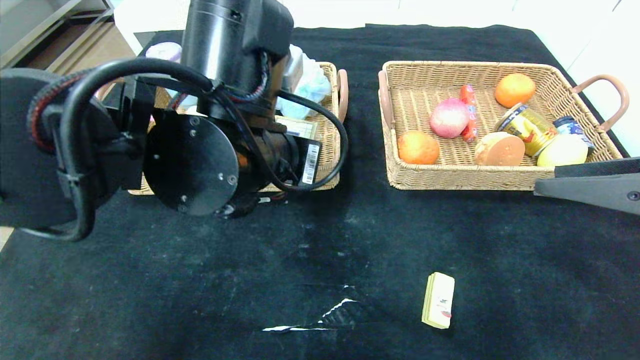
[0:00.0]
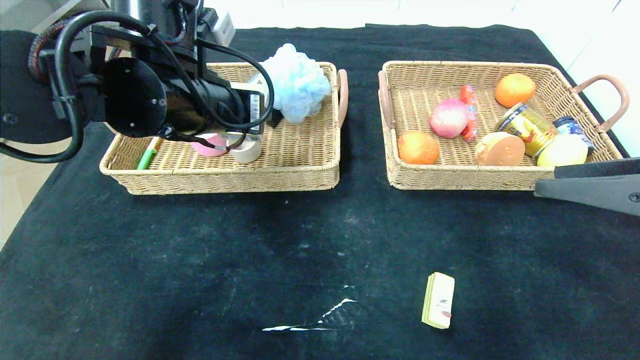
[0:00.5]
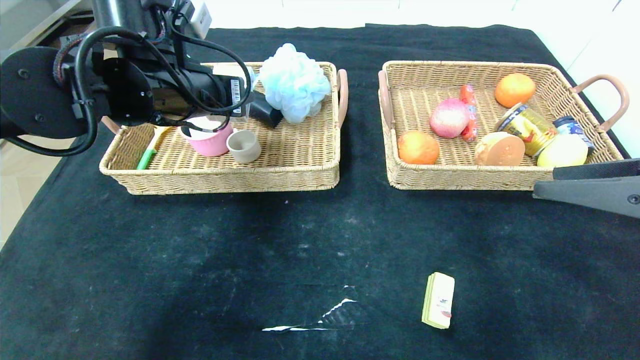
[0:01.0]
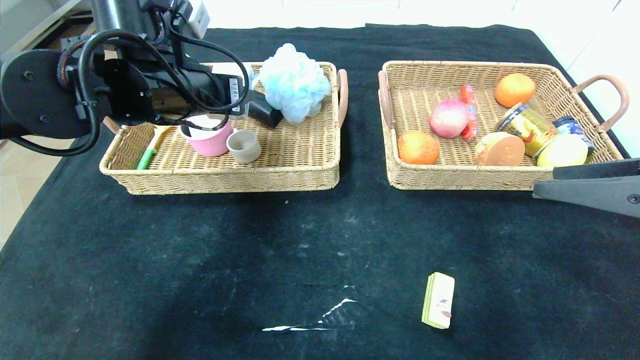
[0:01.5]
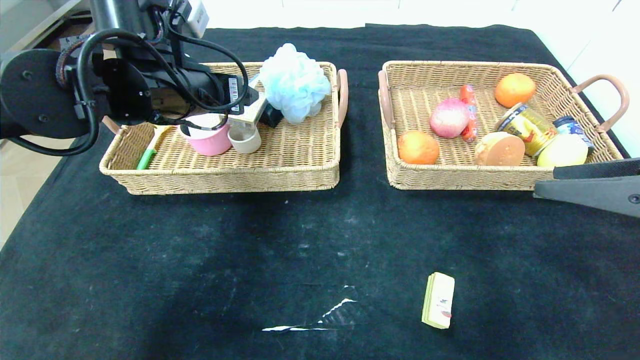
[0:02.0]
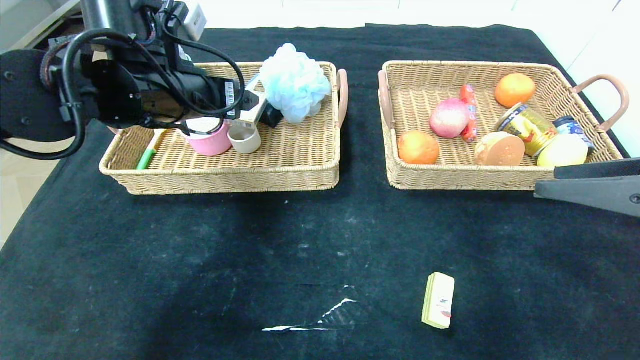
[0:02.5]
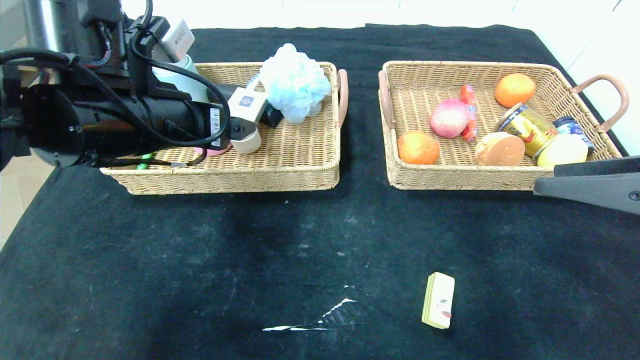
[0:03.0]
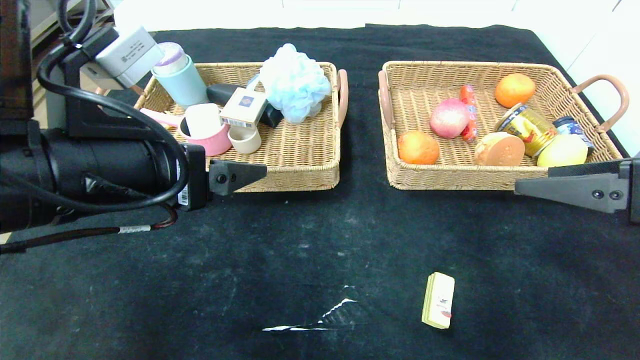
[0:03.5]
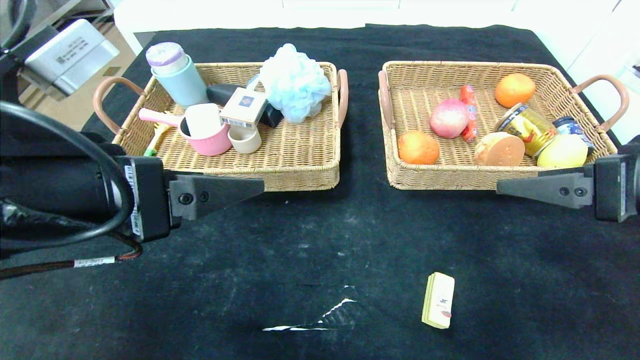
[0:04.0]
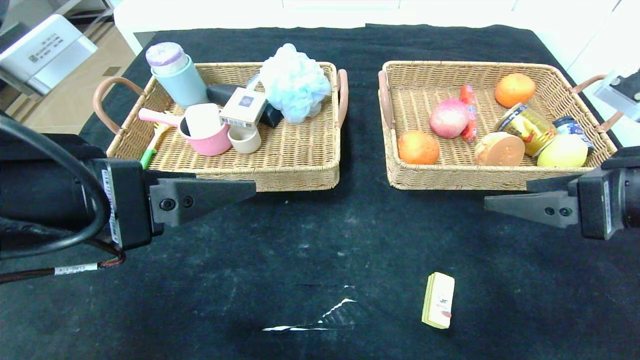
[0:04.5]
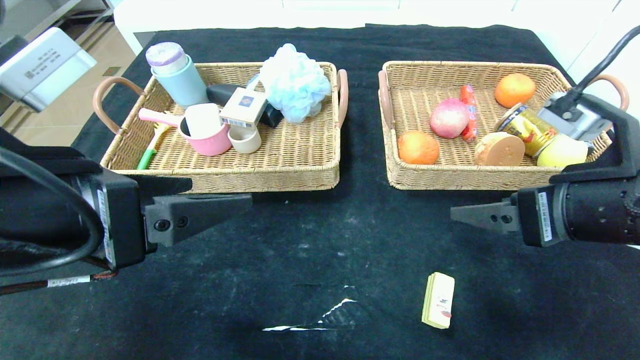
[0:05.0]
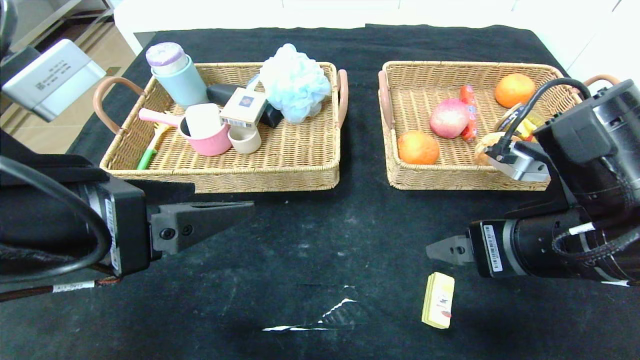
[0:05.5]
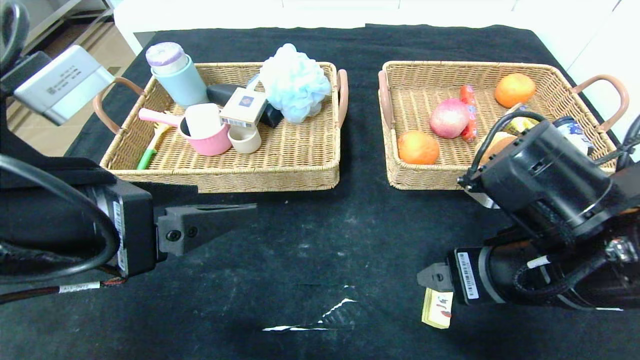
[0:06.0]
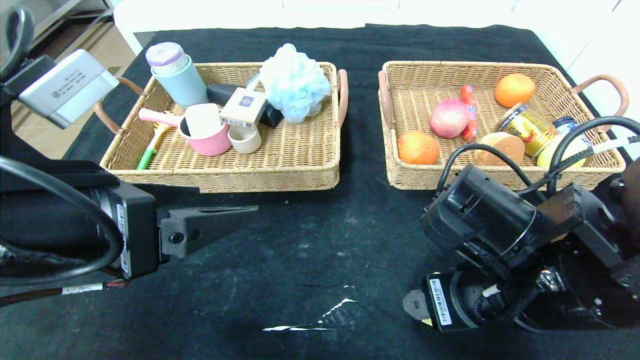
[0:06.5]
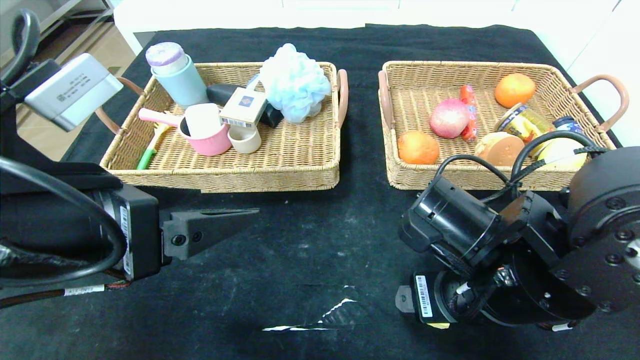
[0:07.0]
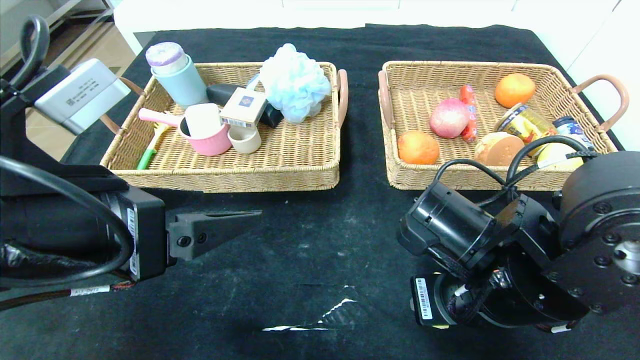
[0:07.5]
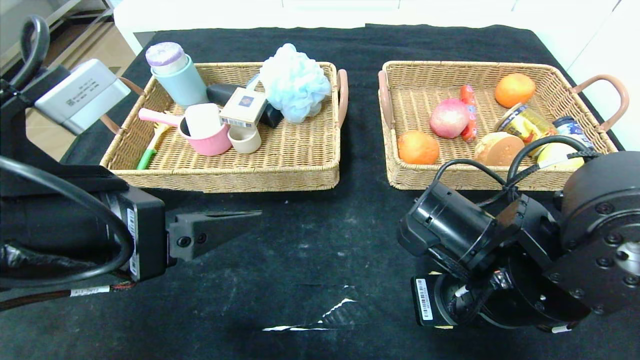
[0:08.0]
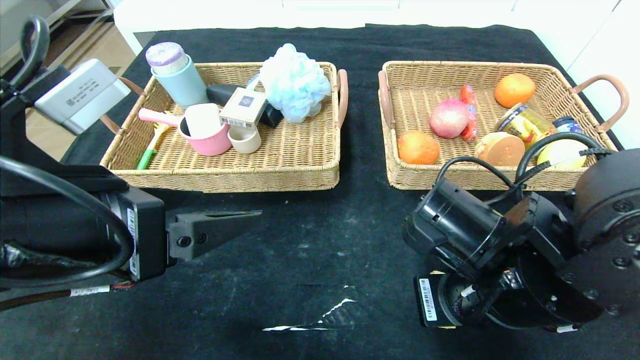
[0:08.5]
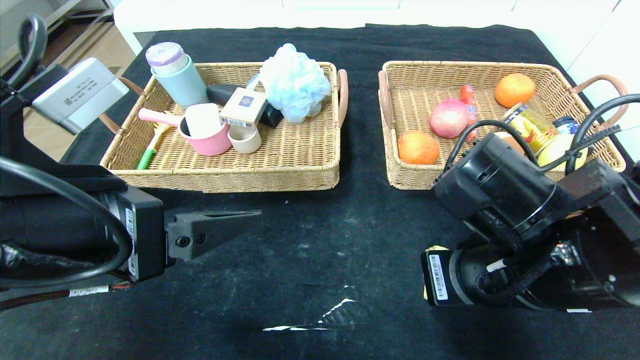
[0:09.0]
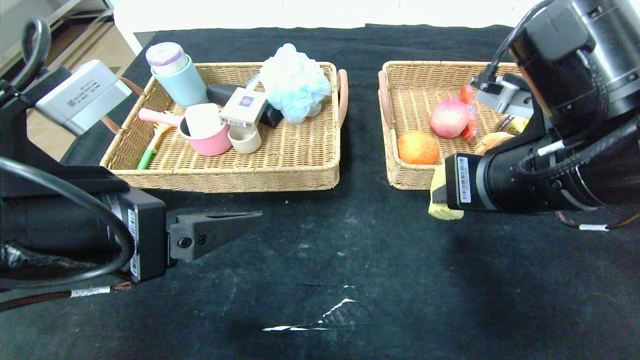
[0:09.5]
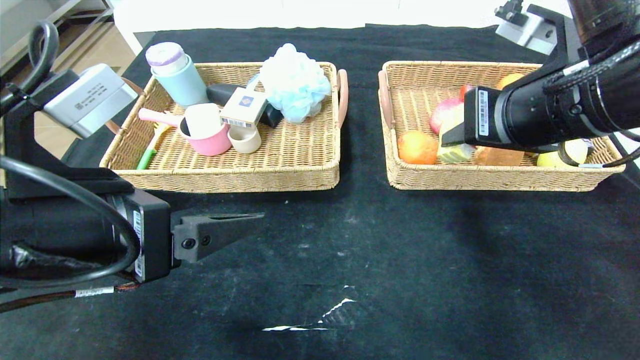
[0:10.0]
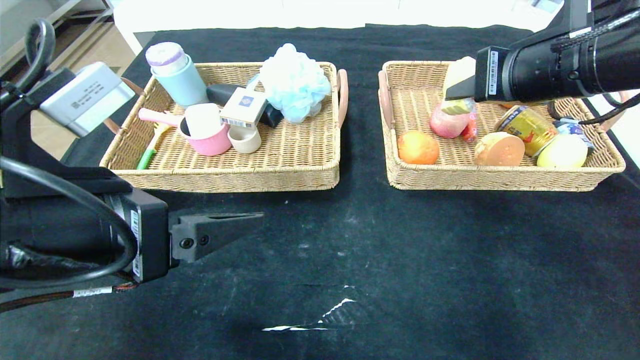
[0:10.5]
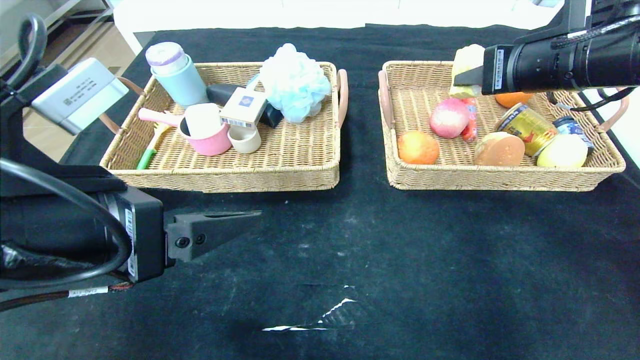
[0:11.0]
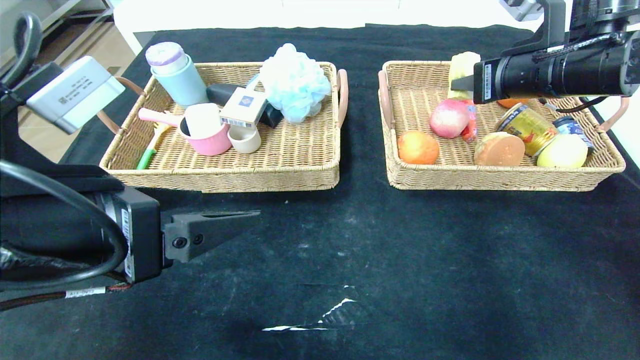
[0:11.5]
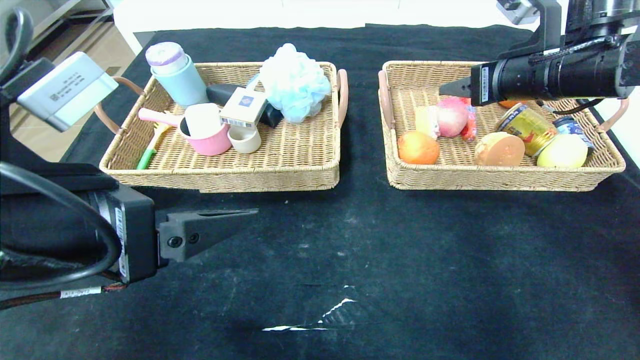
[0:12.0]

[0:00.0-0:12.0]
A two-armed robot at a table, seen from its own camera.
Step, 0:00.0 to 0:03.5: Pick up the playing cards and put it in the left basket.
0:00.0 to 0:02.0: The left gripper moves to the left and forward, some 15 cm.
0:02.0 to 0:04.0: The left gripper travels backward by approximately 20 cm.
0:04.0 to 0:06.0: The right gripper moves to the left and downward, some 15 cm.
0:06.0 to 0:08.0: The right gripper shifts by some 5 cm, and closes up.
0:08.0 to 0:10.0: The right gripper shifts about 15 cm upward.
0:10.0 to 0:12.0: The right gripper heads forward and to the right, covering about 10 cm, and opens its fingers.

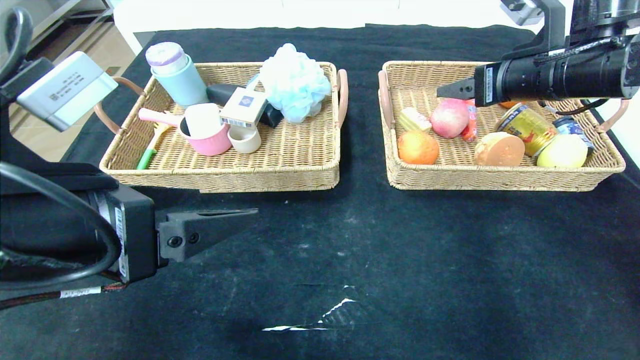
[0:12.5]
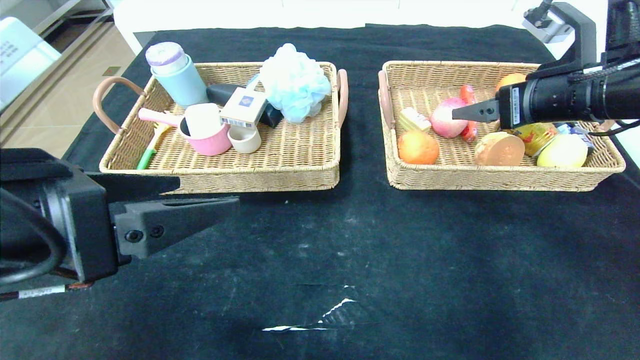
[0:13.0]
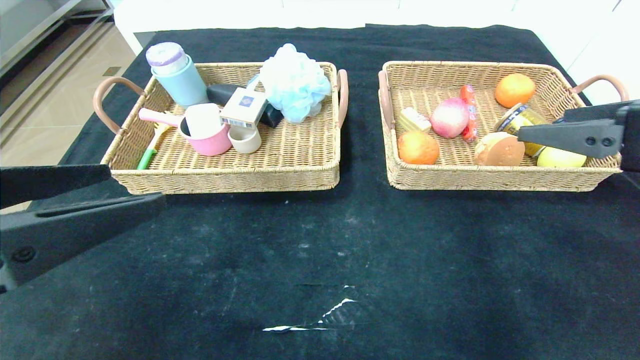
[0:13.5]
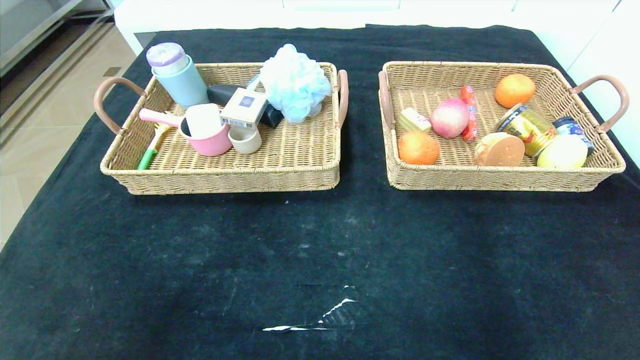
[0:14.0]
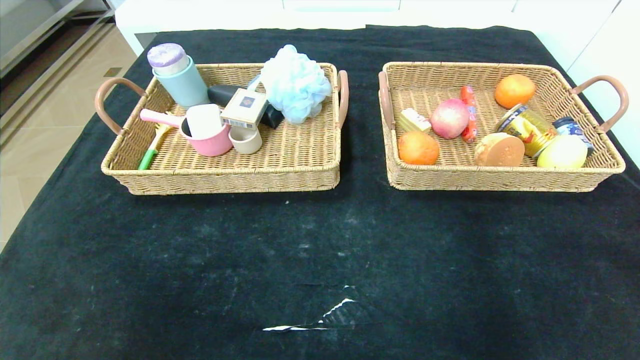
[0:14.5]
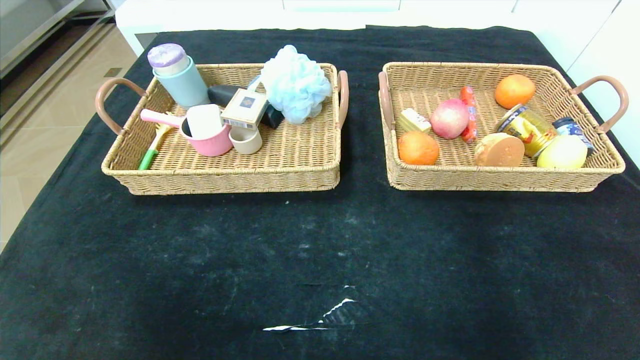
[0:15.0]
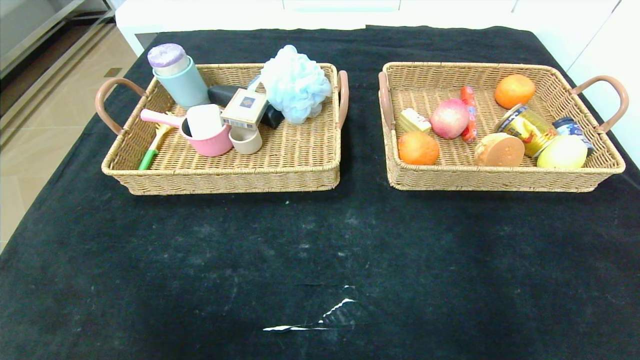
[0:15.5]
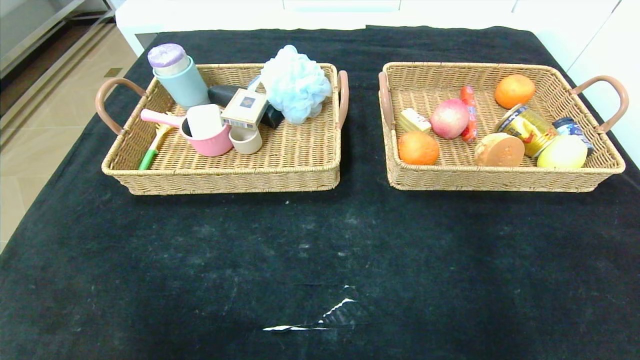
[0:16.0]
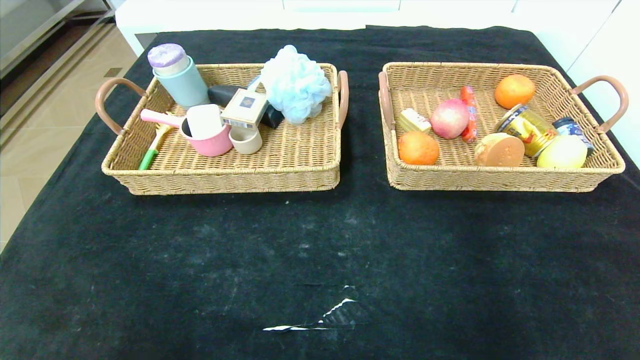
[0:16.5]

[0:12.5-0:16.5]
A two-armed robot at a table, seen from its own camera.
0:12.5 to 0:14.5: The right gripper is displaced backward by some 40 cm. Meanwhile the left gripper heads backward and to the left, covering roughly 25 cm.

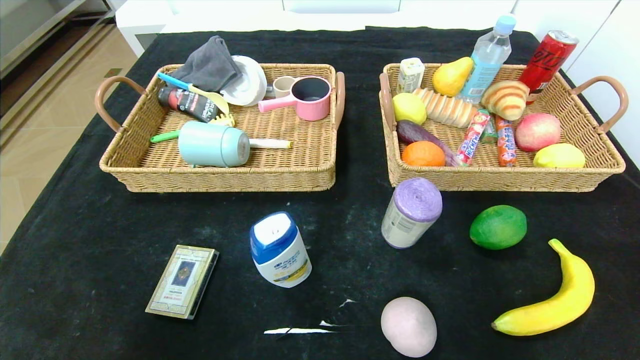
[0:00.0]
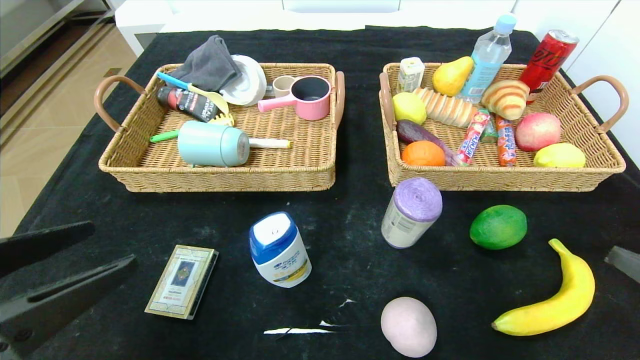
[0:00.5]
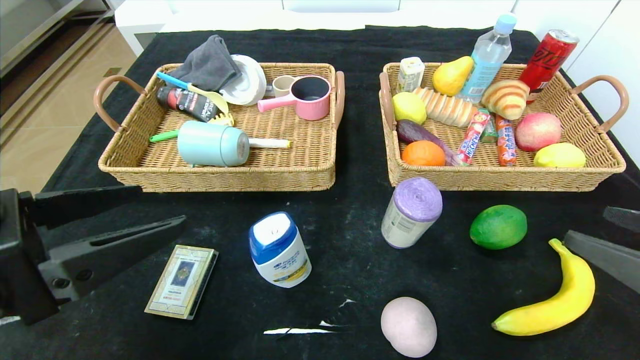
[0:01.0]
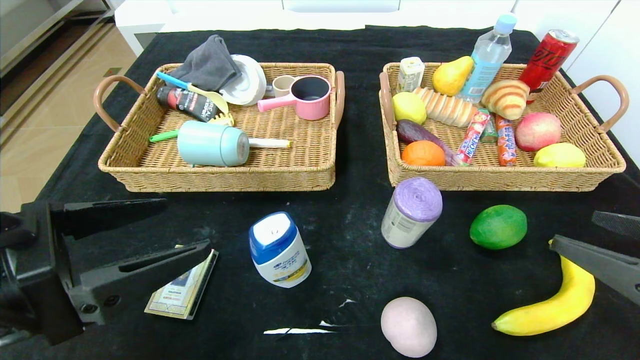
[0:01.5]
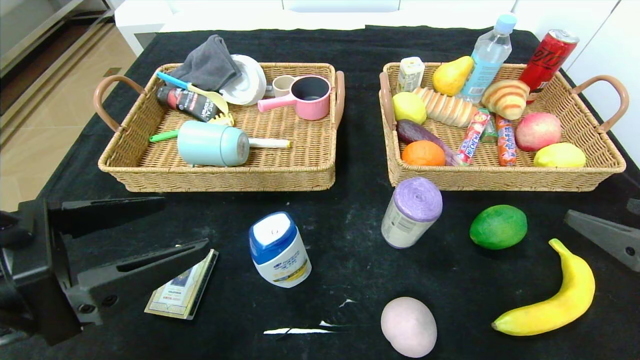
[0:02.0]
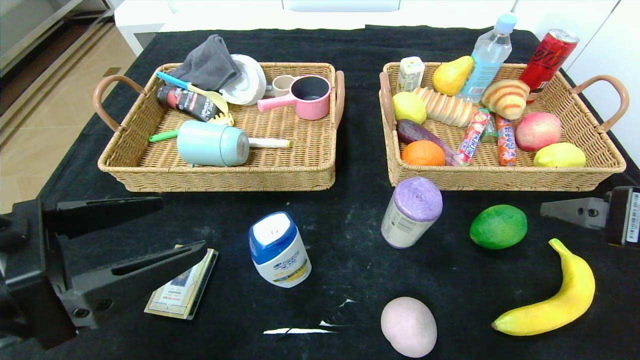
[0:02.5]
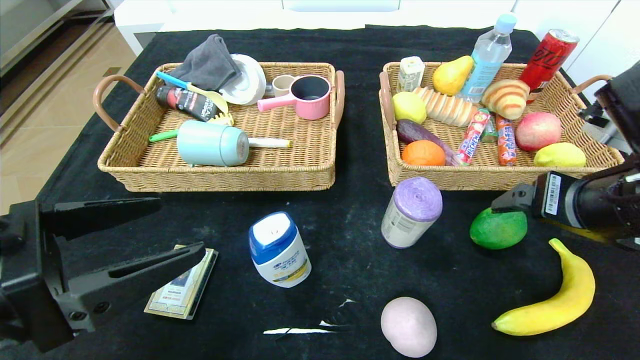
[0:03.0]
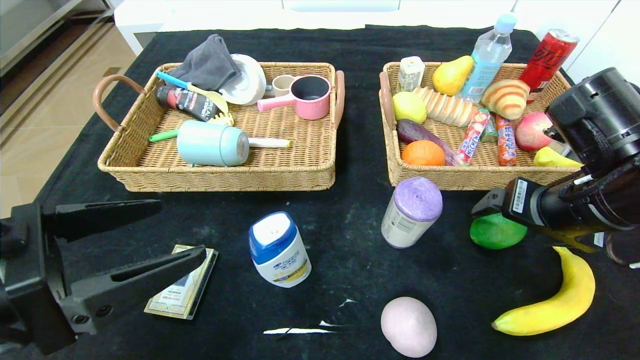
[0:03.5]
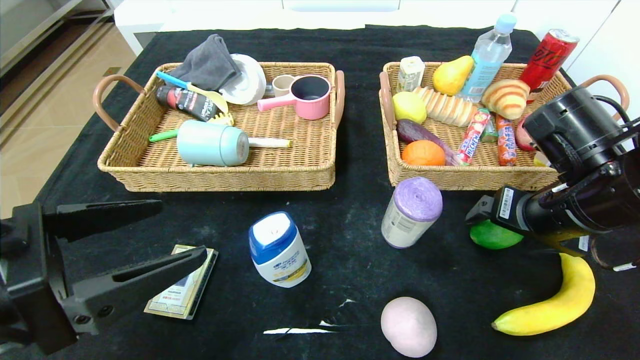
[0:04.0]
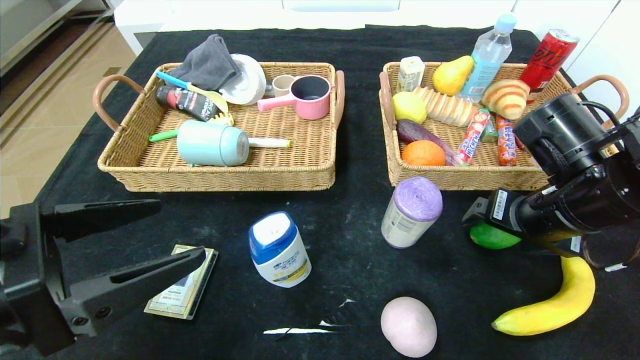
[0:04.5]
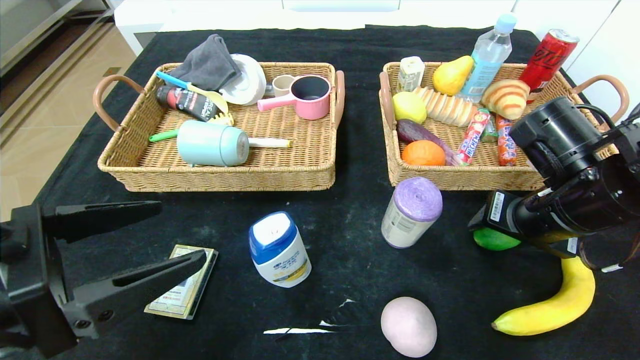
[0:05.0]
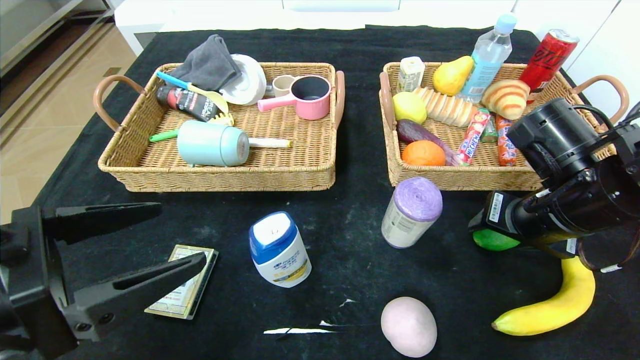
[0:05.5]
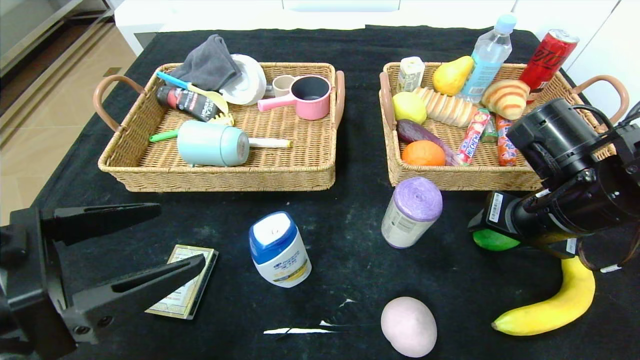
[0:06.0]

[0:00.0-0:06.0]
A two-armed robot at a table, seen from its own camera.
0:00.0 to 0:02.0: The right gripper moves forward and upward, about 10 cm; the left gripper travels forward, upward and to the right by some 15 cm.
0:02.0 to 0:04.0: The right gripper shifts about 15 cm forward and to the left.
0:04.0 to 0:06.0: The right gripper closes up.
